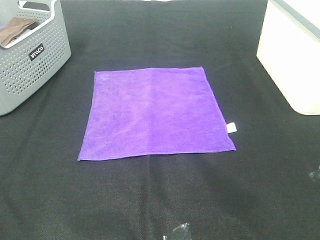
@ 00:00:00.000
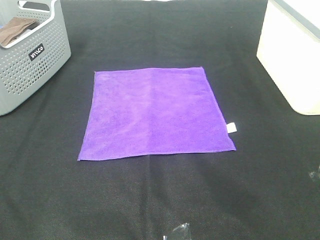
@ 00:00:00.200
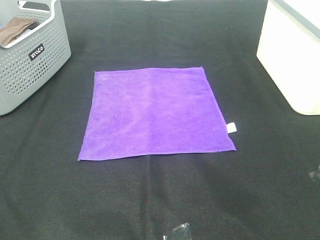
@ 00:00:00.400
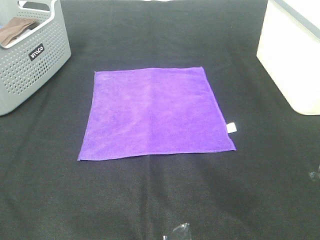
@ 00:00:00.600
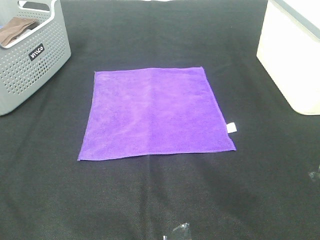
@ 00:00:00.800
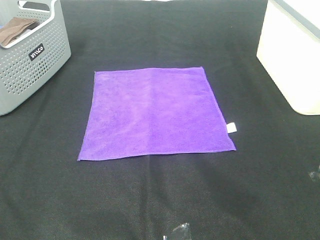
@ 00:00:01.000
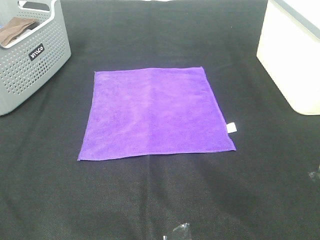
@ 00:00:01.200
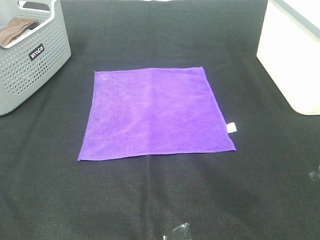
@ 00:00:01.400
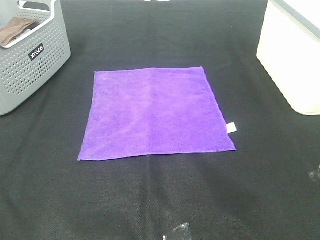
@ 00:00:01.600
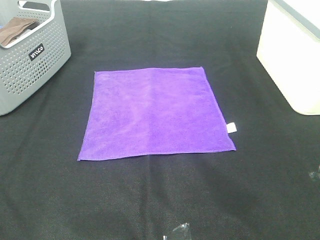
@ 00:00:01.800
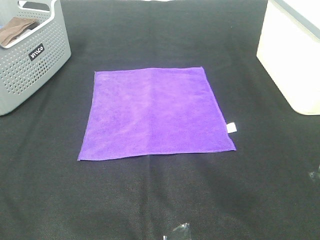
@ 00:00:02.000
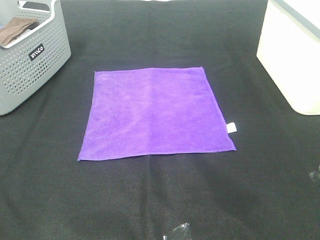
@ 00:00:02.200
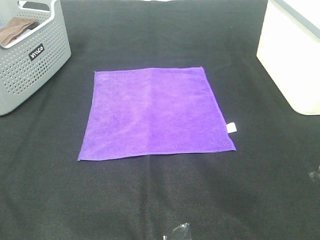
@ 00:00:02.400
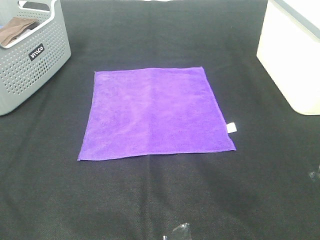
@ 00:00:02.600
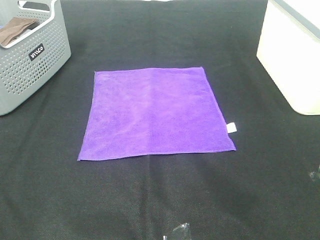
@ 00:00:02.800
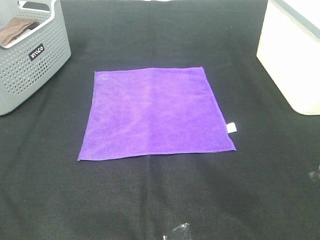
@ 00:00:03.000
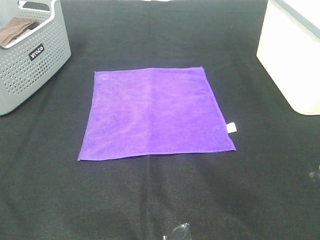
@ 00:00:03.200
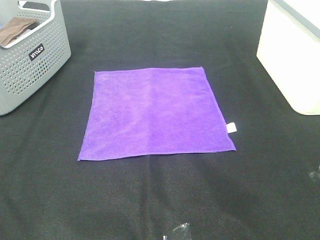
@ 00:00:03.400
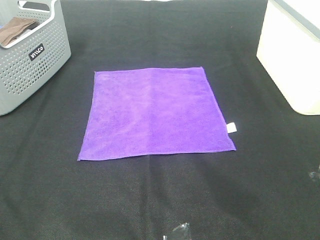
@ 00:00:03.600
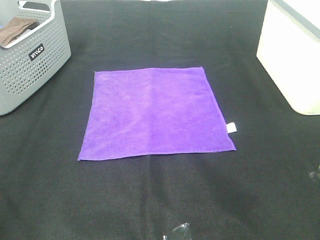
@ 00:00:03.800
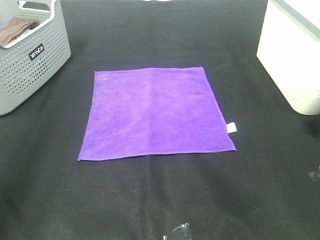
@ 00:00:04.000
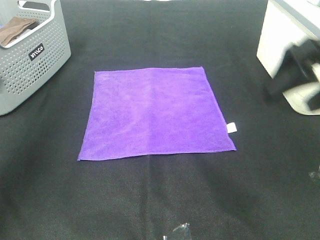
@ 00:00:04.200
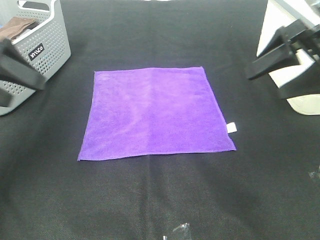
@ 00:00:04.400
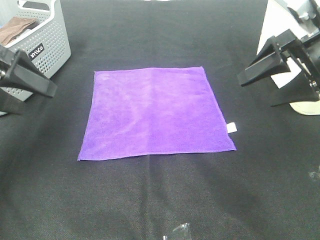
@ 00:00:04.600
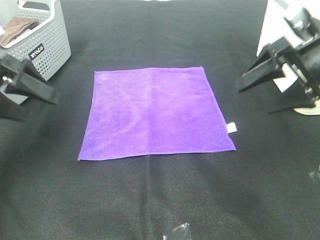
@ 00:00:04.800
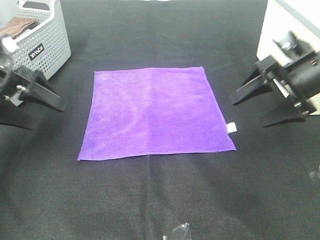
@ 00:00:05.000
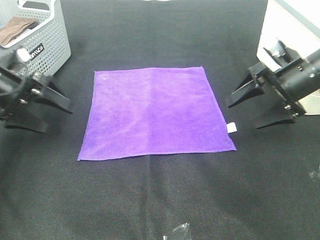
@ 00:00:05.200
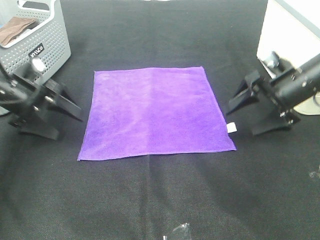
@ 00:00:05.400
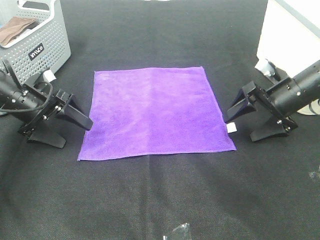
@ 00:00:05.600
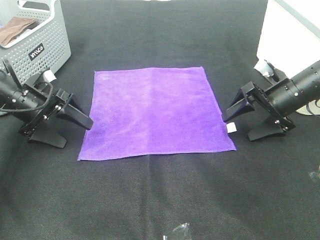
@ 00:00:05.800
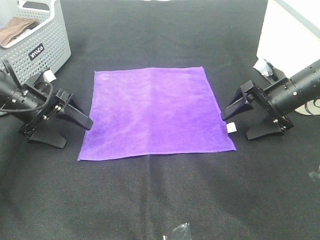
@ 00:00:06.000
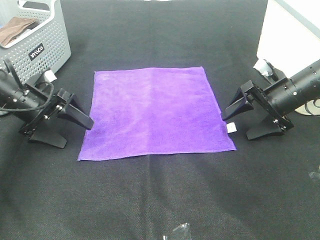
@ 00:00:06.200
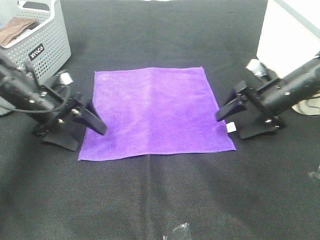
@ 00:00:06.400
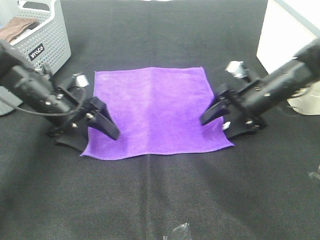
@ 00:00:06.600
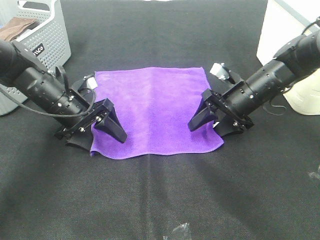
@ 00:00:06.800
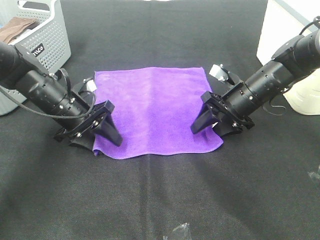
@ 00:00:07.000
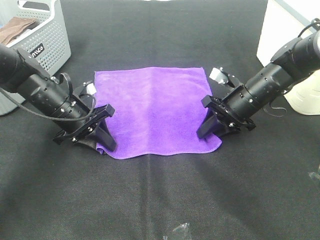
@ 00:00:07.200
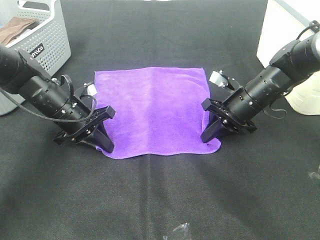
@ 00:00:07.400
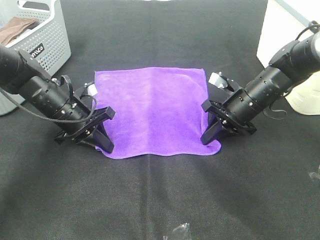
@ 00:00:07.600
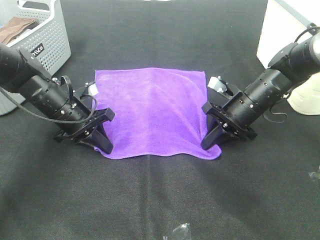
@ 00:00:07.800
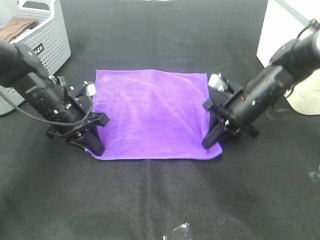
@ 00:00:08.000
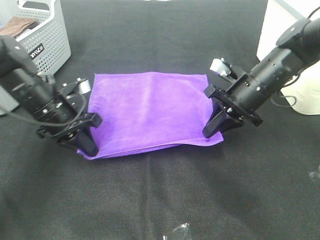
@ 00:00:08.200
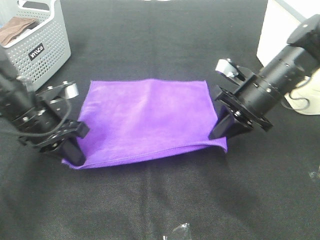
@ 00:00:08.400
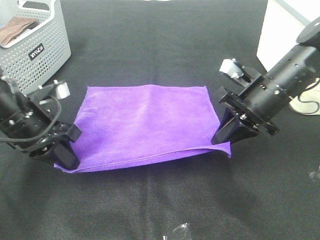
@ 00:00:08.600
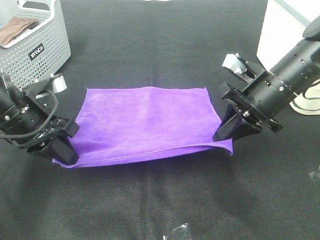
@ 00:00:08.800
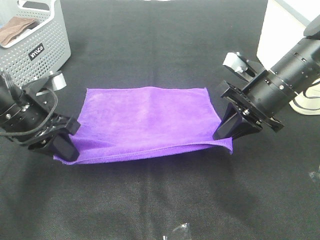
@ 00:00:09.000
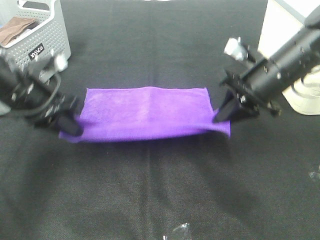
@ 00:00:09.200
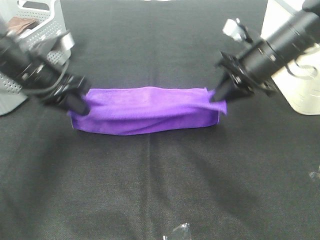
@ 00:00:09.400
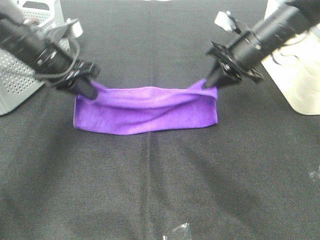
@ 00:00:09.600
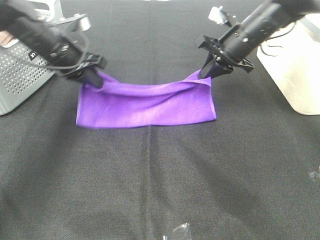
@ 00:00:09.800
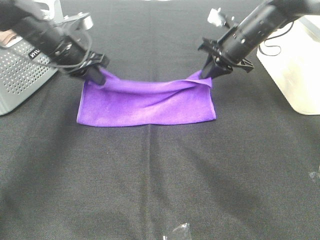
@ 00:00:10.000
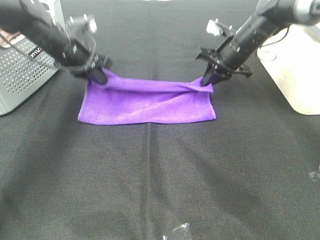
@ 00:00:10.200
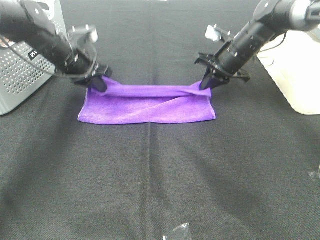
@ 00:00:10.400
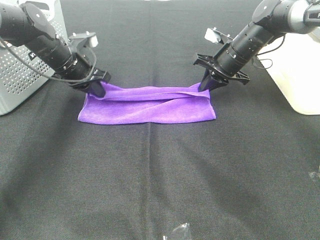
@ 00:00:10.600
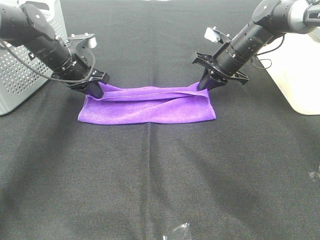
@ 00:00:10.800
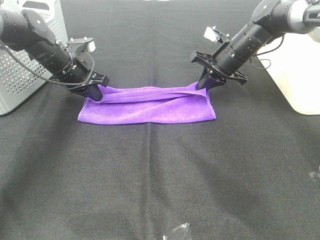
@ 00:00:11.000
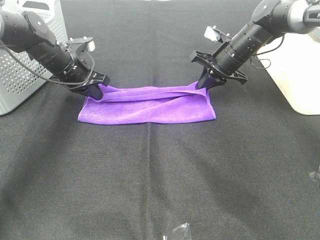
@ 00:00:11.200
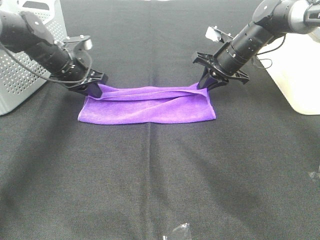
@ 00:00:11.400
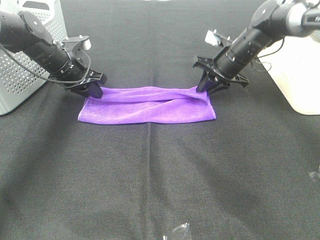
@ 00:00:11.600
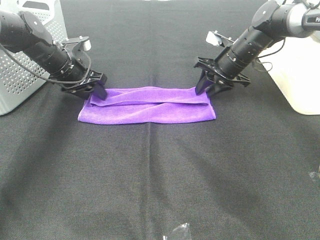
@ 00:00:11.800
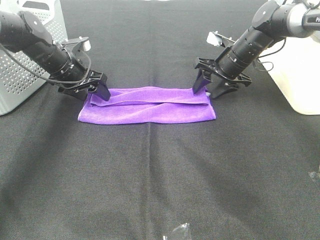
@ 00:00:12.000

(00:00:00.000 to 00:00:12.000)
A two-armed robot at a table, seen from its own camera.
Task of the whole recording: Fold towels.
Step, 00:00:00.000 - 00:00:07.400: Left hand: grab the bottom left corner of purple towel.
Step, 00:00:00.000 - 00:00:07.400: Right hand: grab the bottom right corner of purple towel.
Step, 00:00:07.600 - 00:00:11.200: Left hand: fold the purple towel up.
Step, 00:00:07.600 - 00:00:11.200: Right hand: fold the purple towel up.
00:00:00.000 - 00:00:03.000: Both grippers stay put.
00:00:03.000 - 00:00:04.400: The two grippers go some 30 cm forward.
00:00:04.400 - 00:00:06.000: The two grippers go approximately 15 cm downward and forward.
00:00:06.000 - 00:00:07.600: The left gripper shifts roughly 10 cm to the right, and closes up. The right gripper goes some 10 cm to the left, and closes.
00:00:07.600 - 00:00:09.000: Both grippers travel together upward and backward, about 10 cm.
00:00:09.000 - 00:00:10.400: Both grippers move forward, some 20 cm.
00:00:10.400 - 00:00:12.000: The left gripper opens. Meanwhile the right gripper opens its fingers.

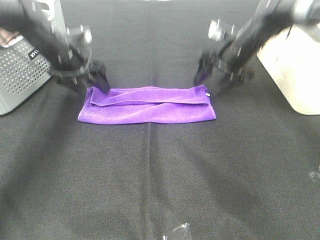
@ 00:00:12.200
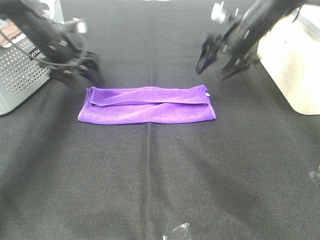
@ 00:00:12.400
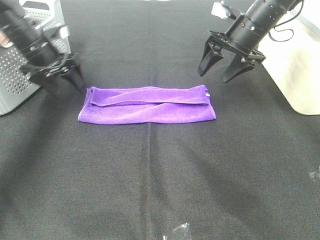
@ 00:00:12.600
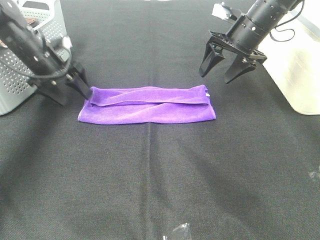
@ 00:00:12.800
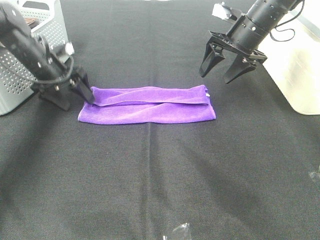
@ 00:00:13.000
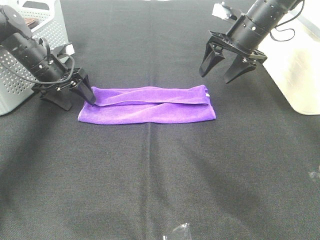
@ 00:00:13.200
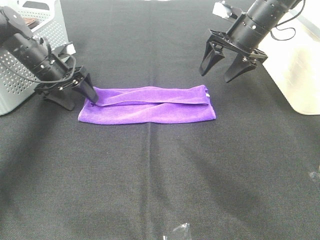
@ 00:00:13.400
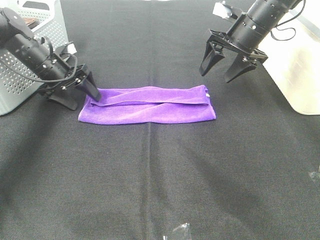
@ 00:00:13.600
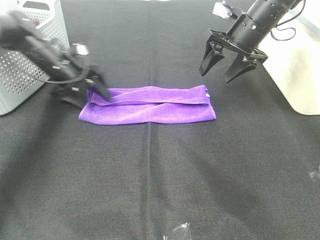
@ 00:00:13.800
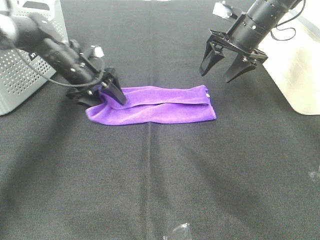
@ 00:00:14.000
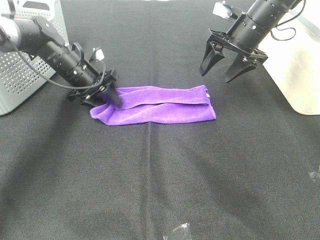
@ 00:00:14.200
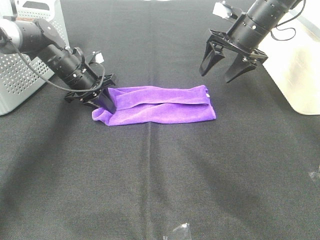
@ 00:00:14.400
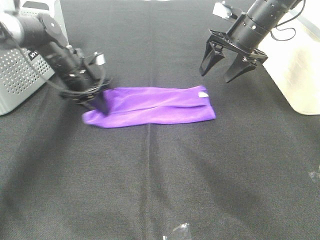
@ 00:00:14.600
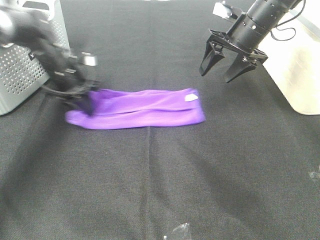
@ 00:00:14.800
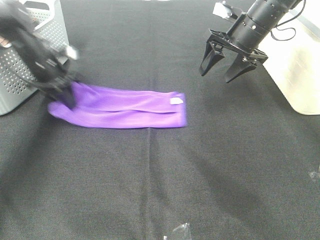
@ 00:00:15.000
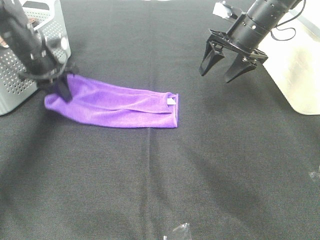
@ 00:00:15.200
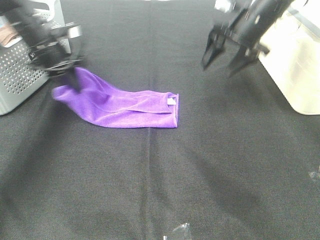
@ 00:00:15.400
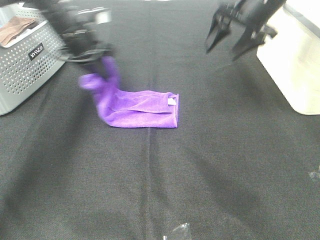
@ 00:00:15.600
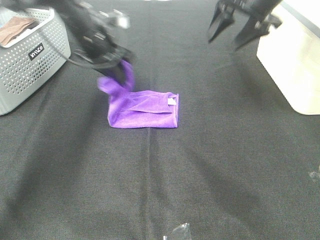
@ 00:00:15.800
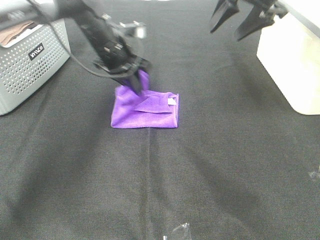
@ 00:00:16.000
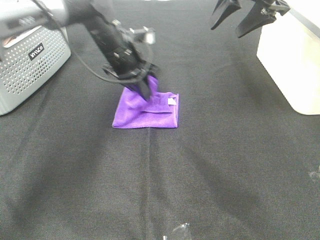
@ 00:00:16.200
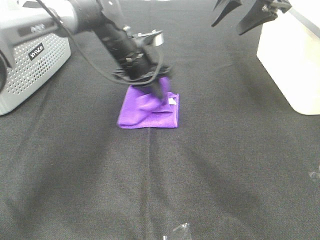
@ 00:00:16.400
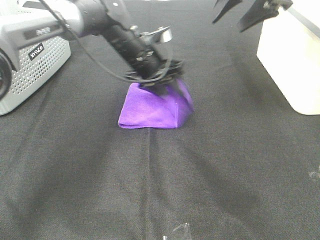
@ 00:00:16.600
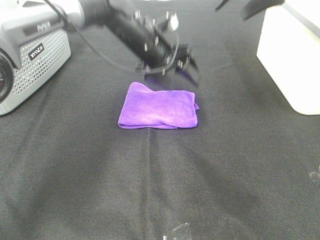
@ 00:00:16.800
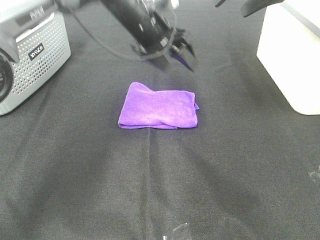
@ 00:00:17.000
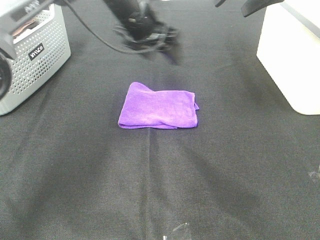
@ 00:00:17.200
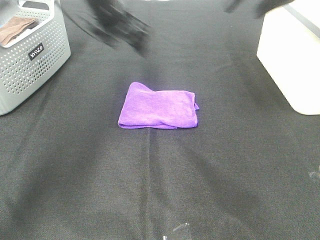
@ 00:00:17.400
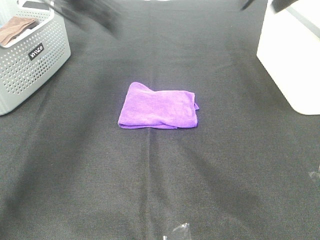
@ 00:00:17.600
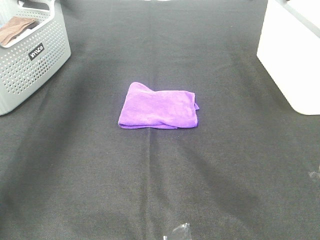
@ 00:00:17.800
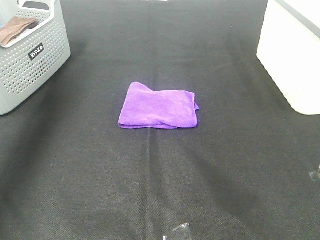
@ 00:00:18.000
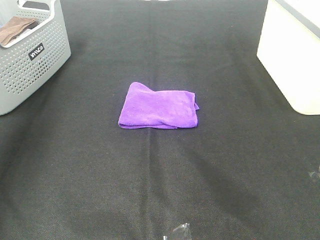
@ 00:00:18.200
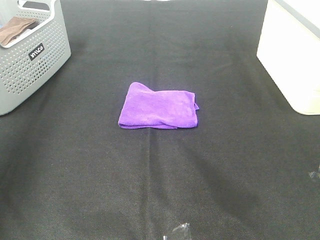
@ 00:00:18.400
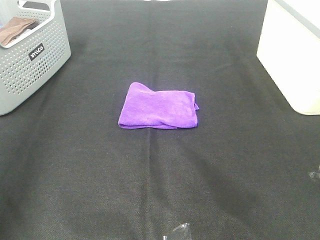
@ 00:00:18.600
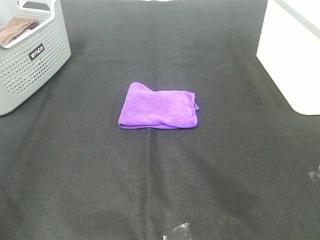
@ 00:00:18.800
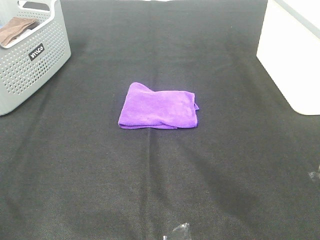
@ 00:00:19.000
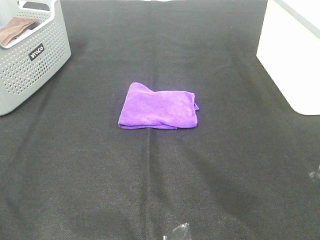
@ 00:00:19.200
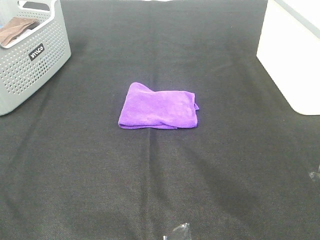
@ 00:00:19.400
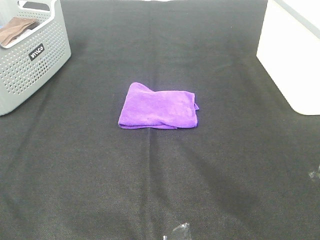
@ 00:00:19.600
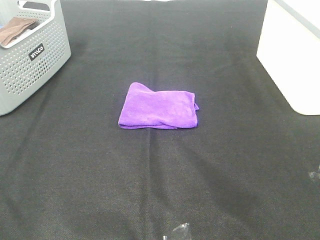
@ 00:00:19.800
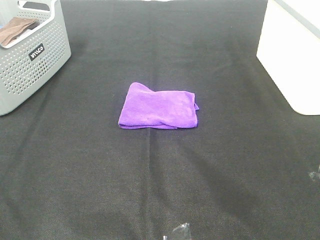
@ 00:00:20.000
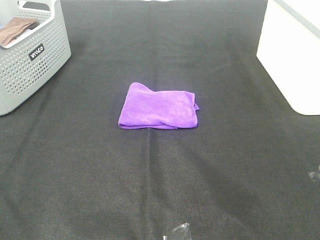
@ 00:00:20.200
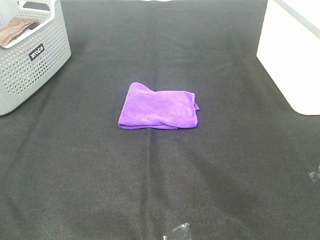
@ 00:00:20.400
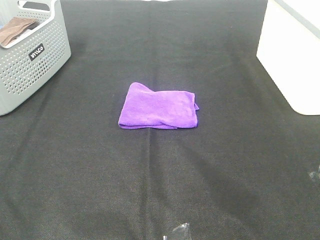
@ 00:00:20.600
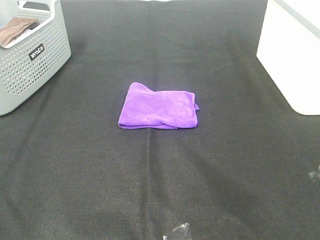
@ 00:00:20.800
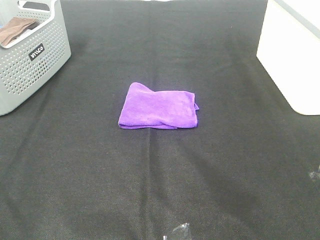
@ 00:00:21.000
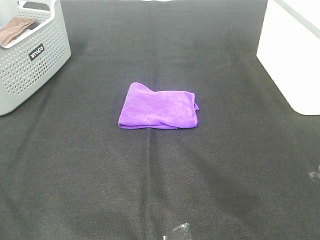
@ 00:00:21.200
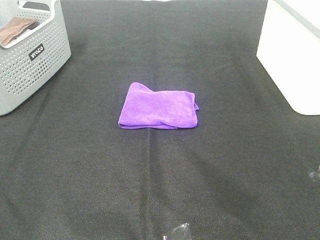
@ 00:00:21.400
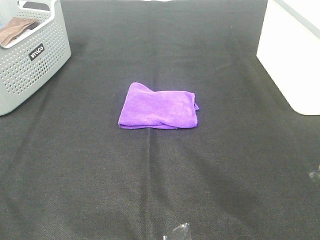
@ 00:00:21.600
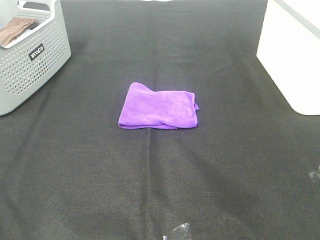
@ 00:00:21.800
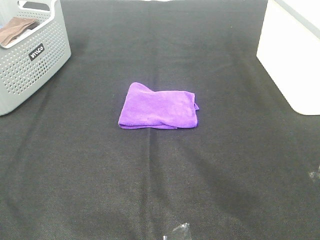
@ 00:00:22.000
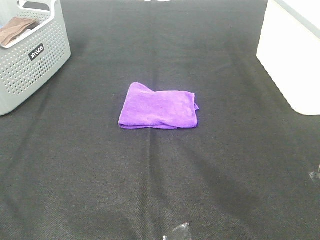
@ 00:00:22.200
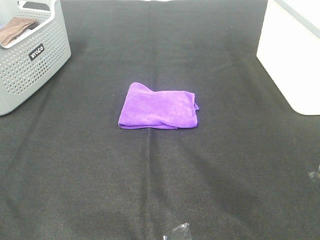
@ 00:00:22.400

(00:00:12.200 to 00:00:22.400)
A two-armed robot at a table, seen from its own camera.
Task of the whole recording: Fold towels.
Step, 00:00:12.200 - 00:00:16.400: Left hand: fold the purple towel from left to right.
00:00:12.200 - 00:00:13.600: The right gripper ends up roughly 5 cm from where it was, while the left gripper is displaced downward by some 5 cm.
00:00:13.600 - 00:00:15.200: The left gripper heads upward, covering about 5 cm, and closes.
00:00:15.200 - 00:00:16.600: The right gripper is displaced upward by about 10 cm, while the left gripper heads to the right, covering some 20 cm, and opens its fingers.
00:00:16.600 - 00:00:18.000: The left gripper travels to the left and upward by roughly 40 cm. Meanwhile the right gripper moves to the right, upward and backward, approximately 10 cm.
00:00:18.000 - 00:00:19.400: The left gripper shifts some 40 cm backward.
00:00:21.000 - 00:00:22.400: Both grippers stay about where they are.
